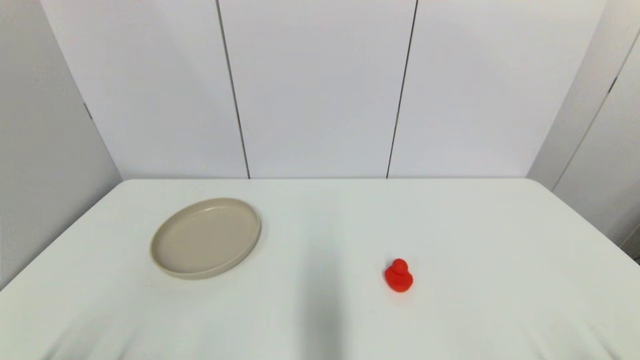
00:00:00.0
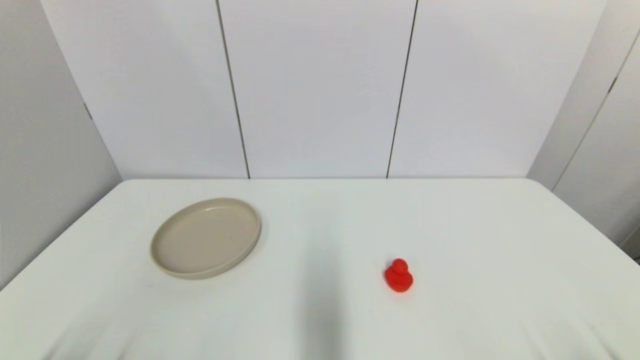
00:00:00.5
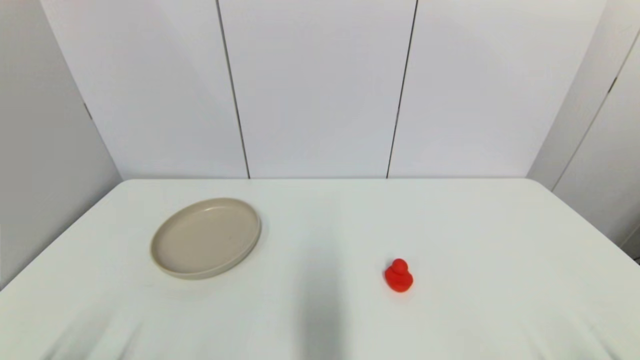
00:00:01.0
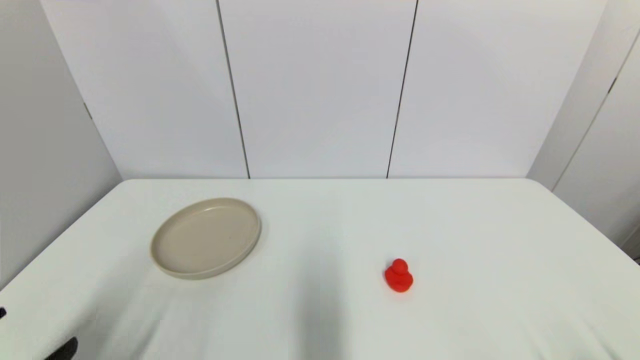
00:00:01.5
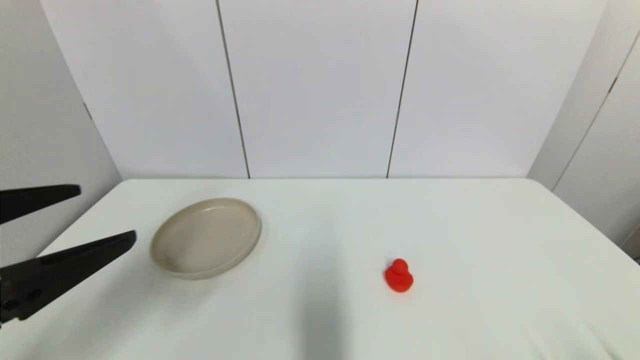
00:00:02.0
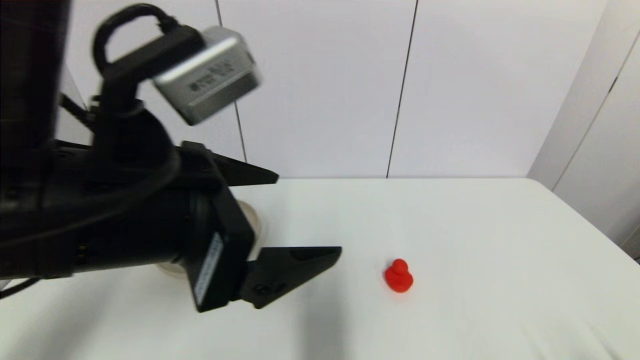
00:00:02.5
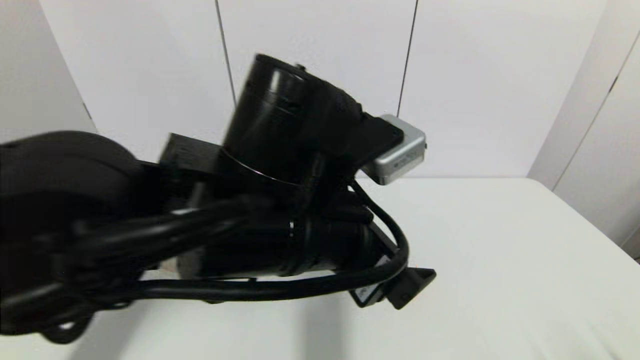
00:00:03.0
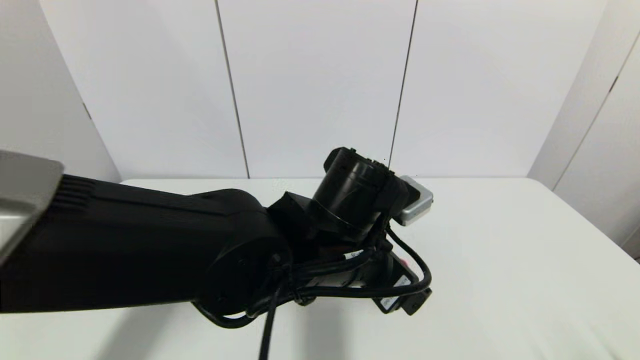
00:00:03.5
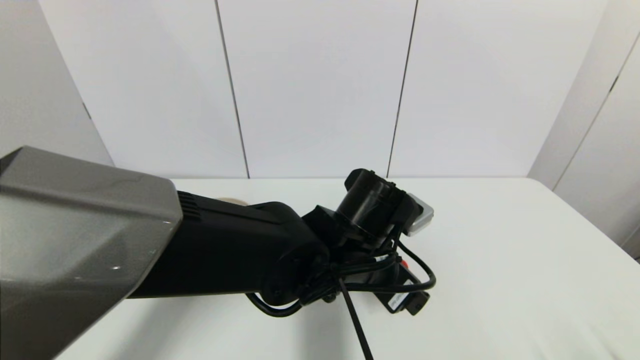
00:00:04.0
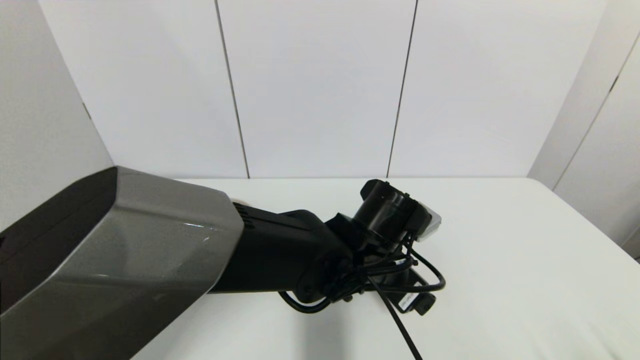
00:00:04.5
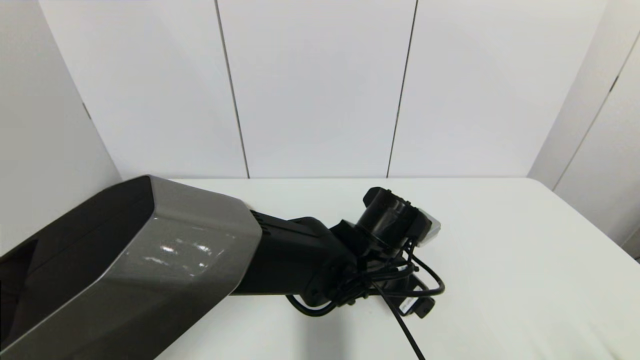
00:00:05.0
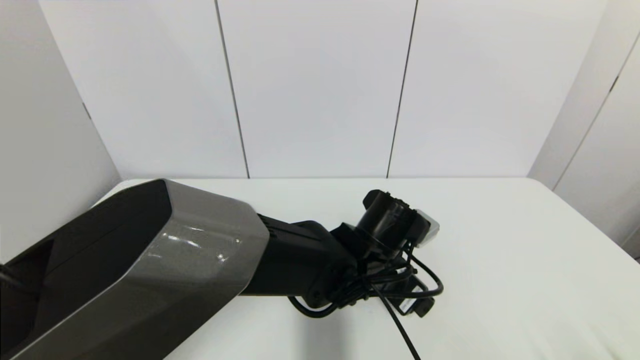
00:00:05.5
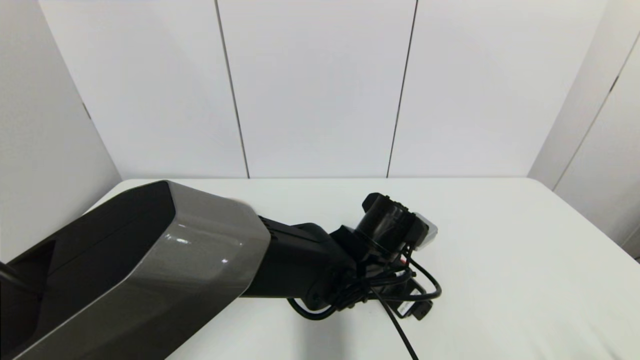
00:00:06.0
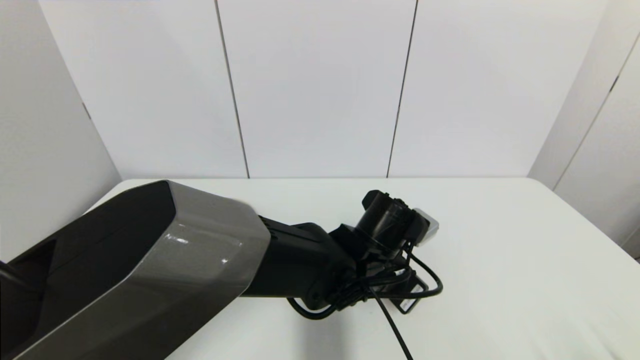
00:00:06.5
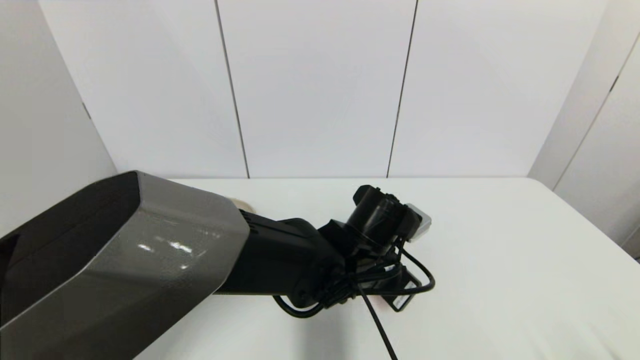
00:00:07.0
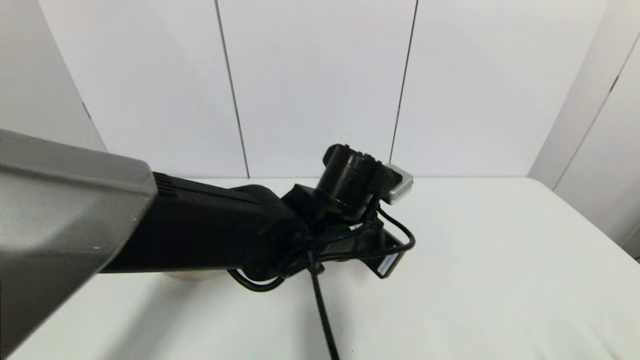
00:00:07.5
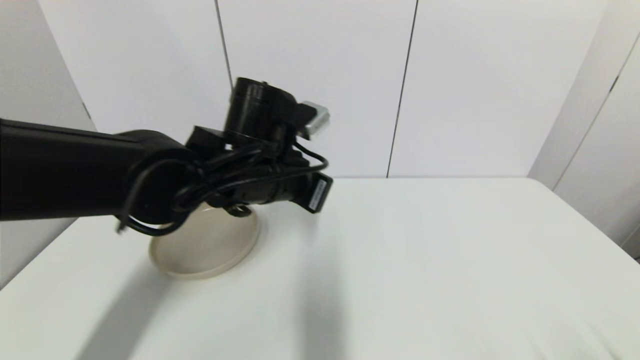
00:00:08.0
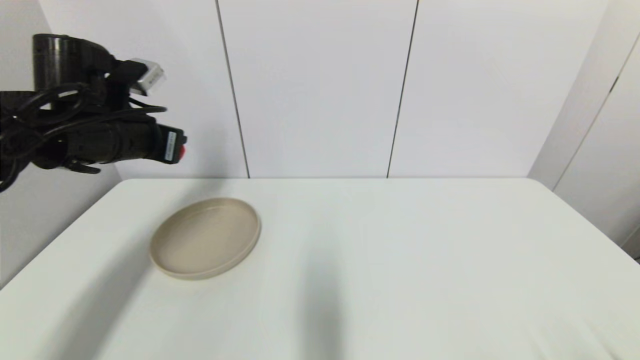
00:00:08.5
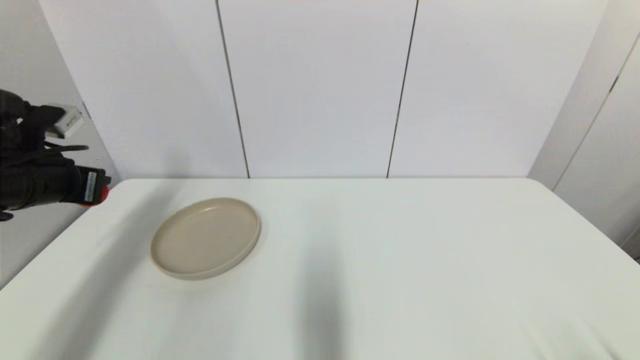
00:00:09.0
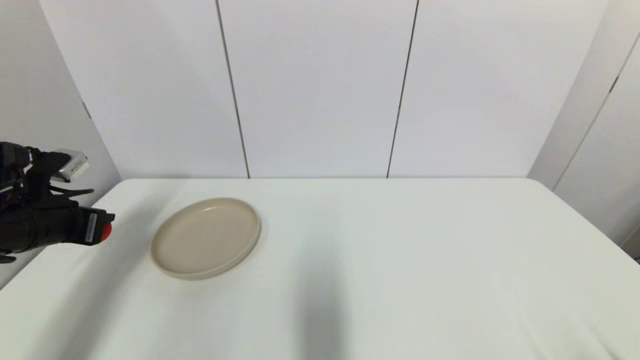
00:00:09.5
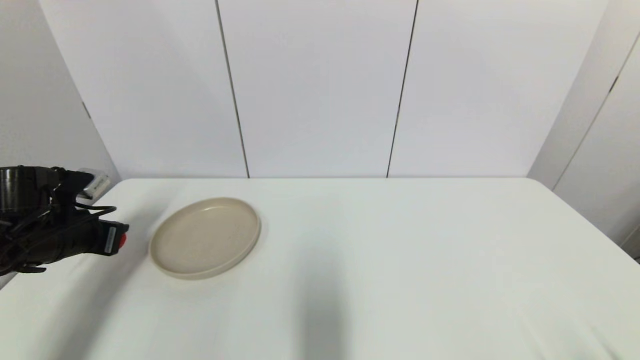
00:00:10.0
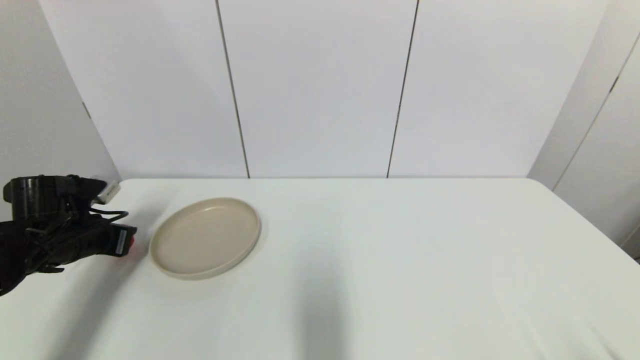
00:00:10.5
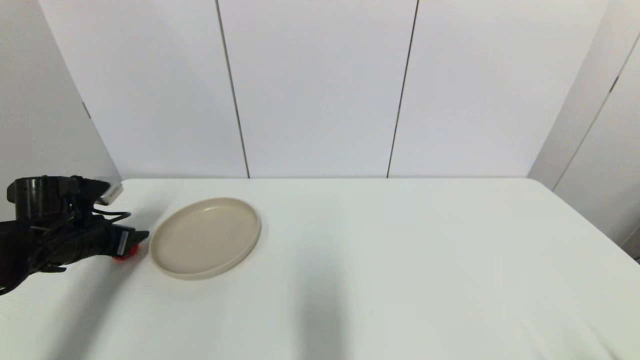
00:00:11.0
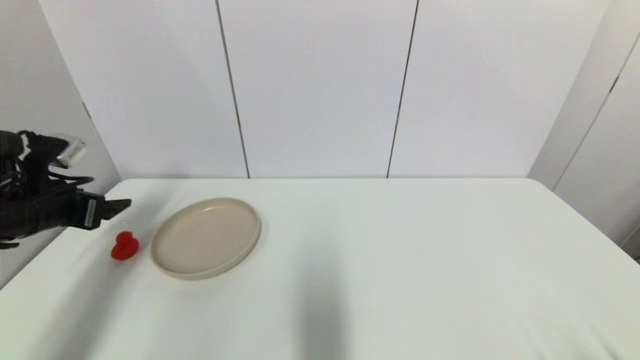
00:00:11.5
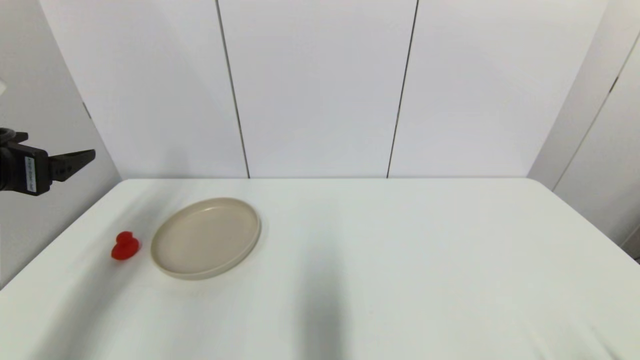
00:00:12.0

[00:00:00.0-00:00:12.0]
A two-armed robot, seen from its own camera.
Step, 00:00:01.5 to 00:00:07.0: Grasp the red duck with left gripper.
Step, 00:00:07.5 to 00:00:10.5: Place the red duck on the table with left gripper.
00:00:00.0 to 00:00:02.0: The left gripper heads upward and forward, covering some 20 cm.
00:00:02.0 to 00:00:04.0: The left gripper heads to the right, forward and downward, covering about 35 cm.
00:00:04.0 to 00:00:06.0: The left gripper changes place by about 5 cm.
00:00:06.0 to 00:00:08.0: The left gripper travels to the left and upward by approximately 20 cm, and closes its fingers.
00:00:08.0 to 00:00:10.0: The left gripper goes roughly 25 cm to the left.
00:00:10.0 to 00:00:12.0: The left gripper moves upward and backward, approximately 15 cm, and opens its fingers.

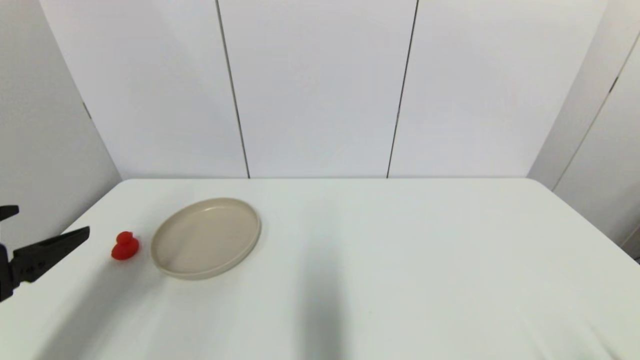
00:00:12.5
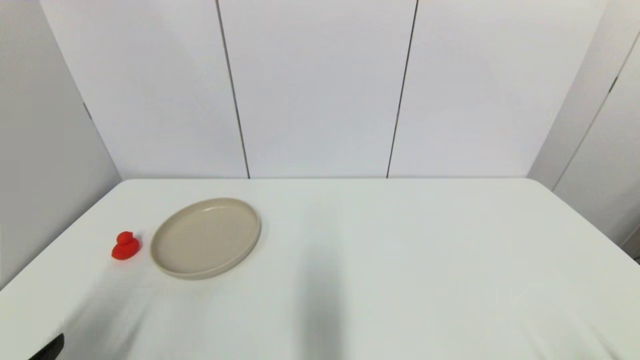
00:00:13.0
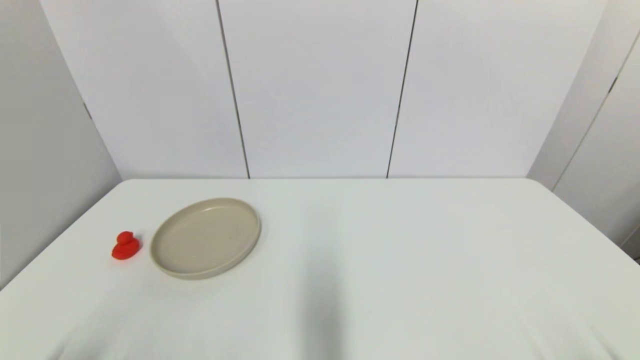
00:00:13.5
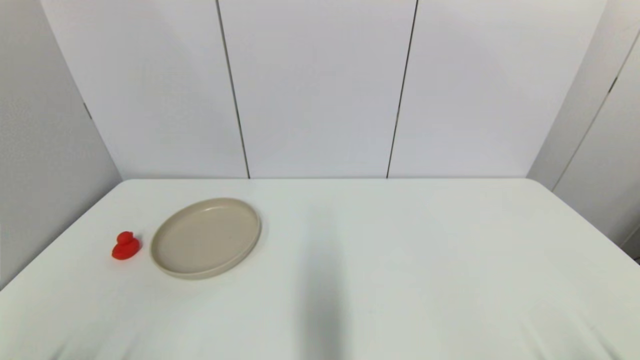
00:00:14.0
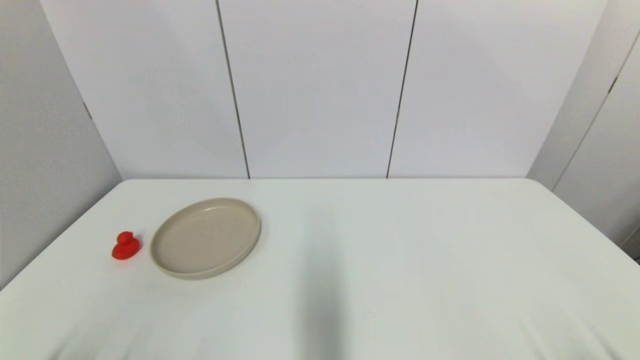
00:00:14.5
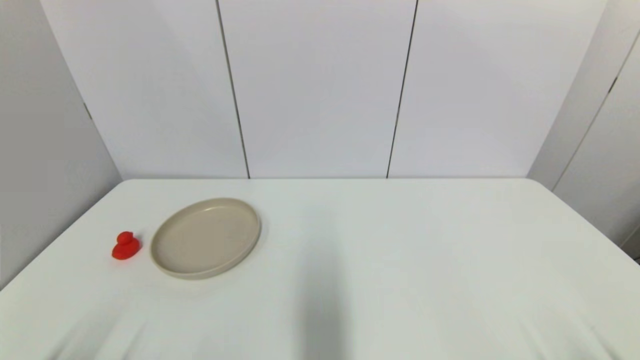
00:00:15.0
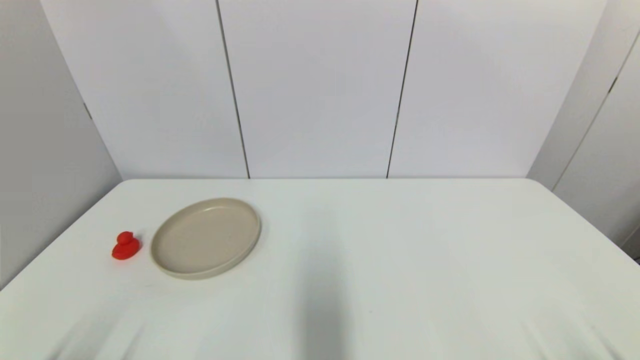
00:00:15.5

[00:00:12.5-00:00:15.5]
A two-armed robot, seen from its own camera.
00:00:12.5 to 00:00:14.0: The left gripper travels downward and backward by about 20 cm.
00:00:14.0 to 00:00:15.5: The two grippers keep their place.

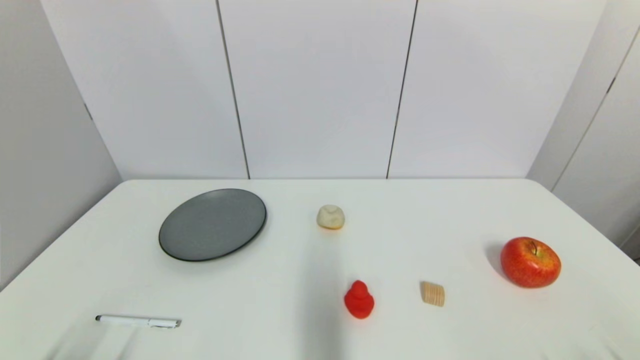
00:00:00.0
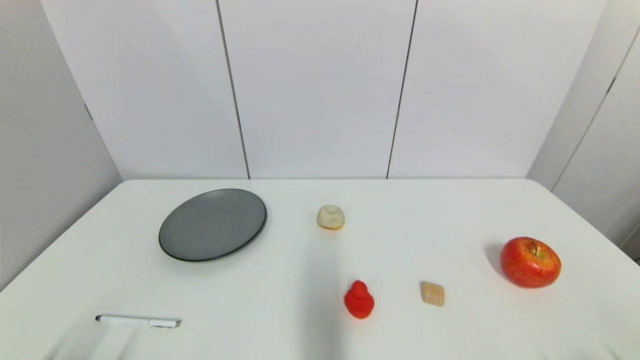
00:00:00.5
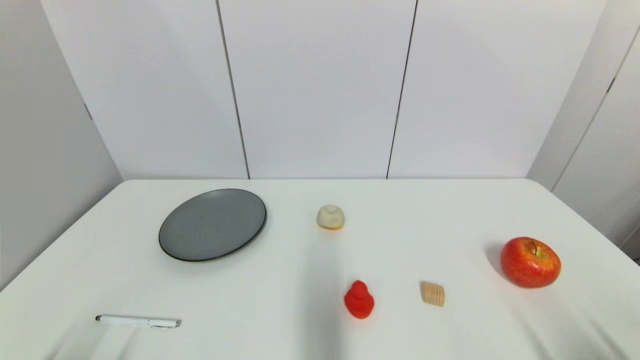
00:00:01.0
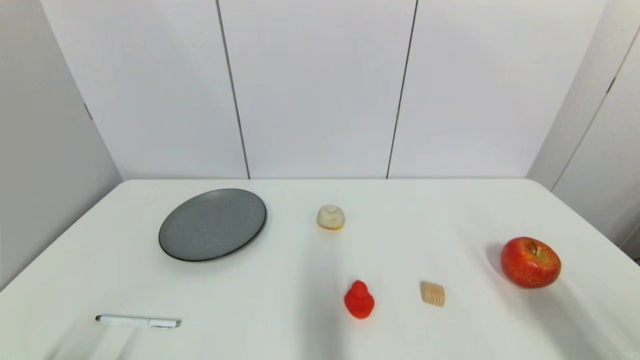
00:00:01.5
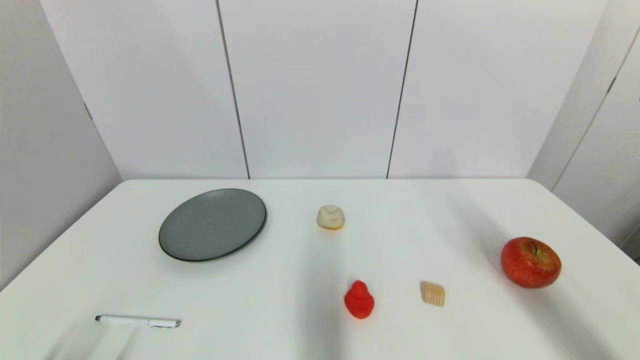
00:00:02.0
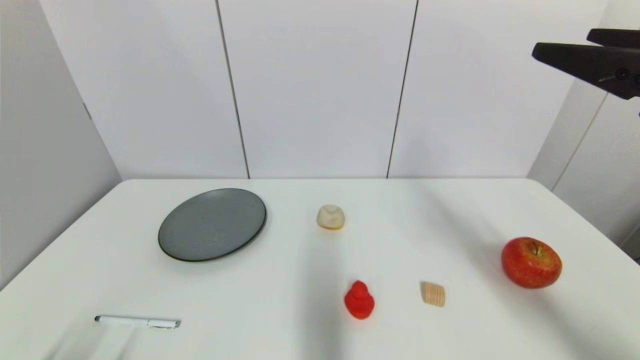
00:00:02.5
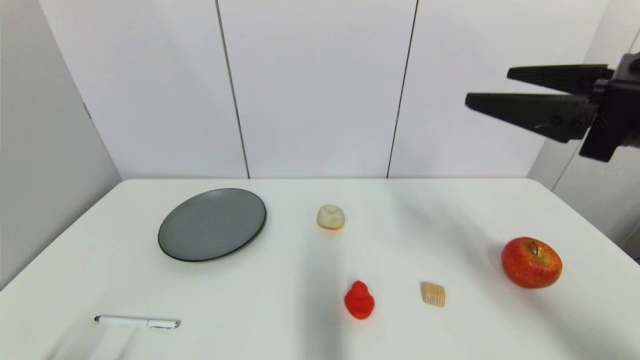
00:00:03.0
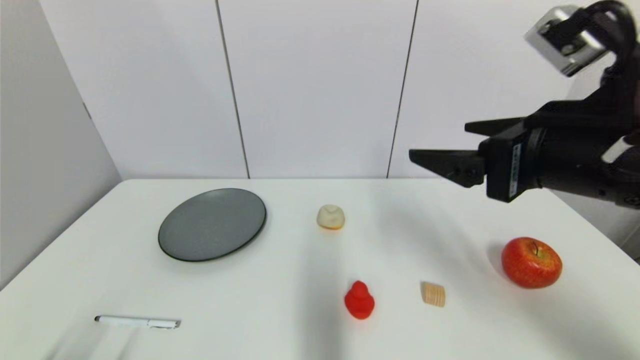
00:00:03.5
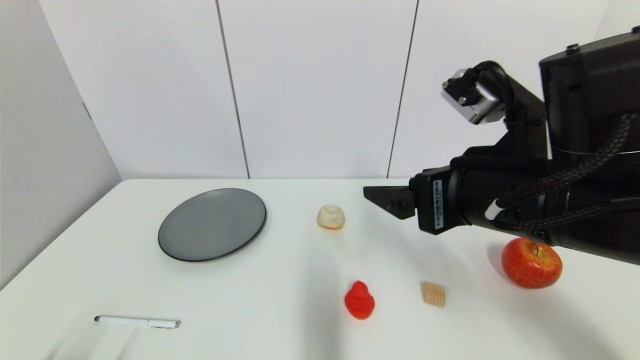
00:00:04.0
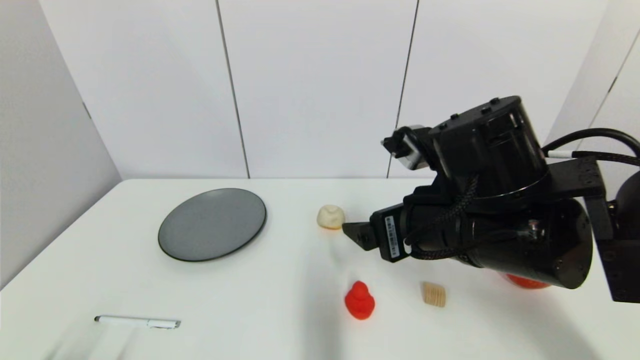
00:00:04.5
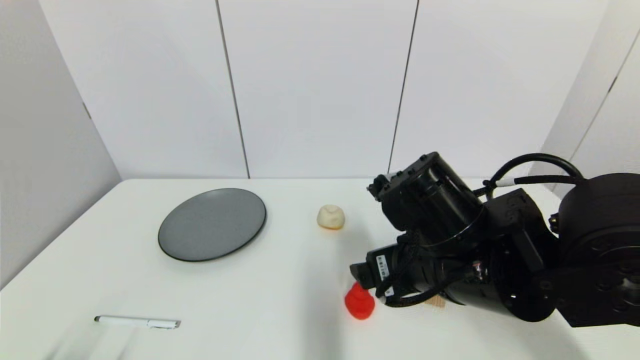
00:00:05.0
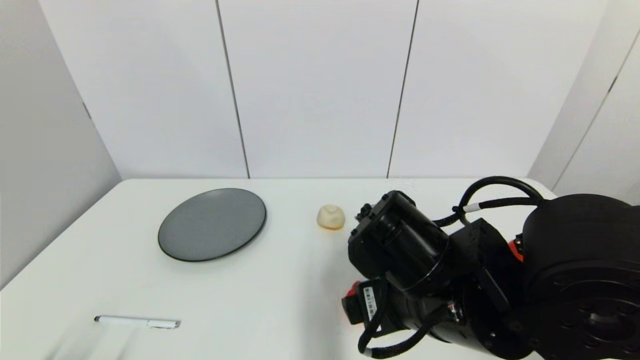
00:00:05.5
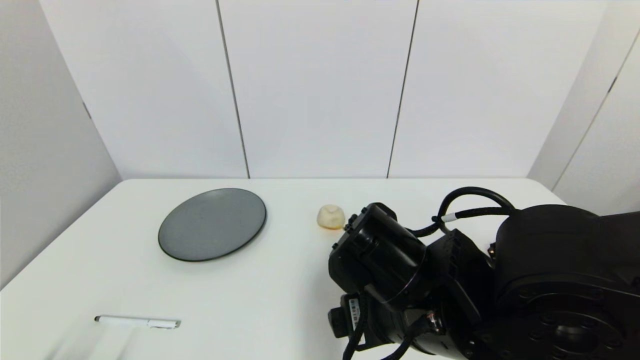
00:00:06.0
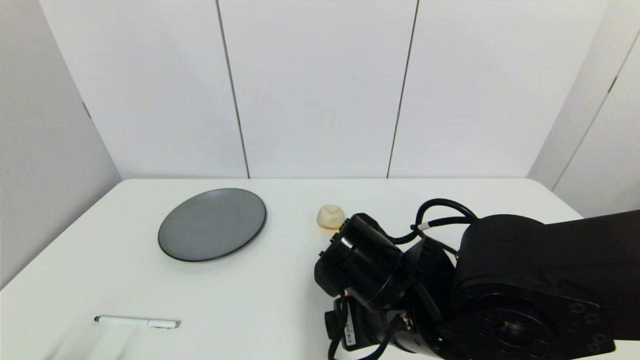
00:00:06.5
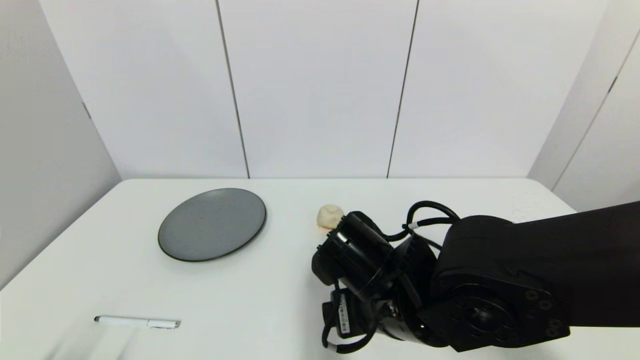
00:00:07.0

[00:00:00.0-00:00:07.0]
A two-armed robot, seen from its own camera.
00:00:00.0 to 00:00:02.0: The right gripper moves upward and forward, some 30 cm.
00:00:02.0 to 00:00:03.5: The right gripper is displaced to the left and forward by about 15 cm.
00:00:03.5 to 00:00:05.0: The right gripper goes approximately 15 cm downward and to the left.
00:00:05.0 to 00:00:07.0: The right gripper moves downward, about 5 cm.
